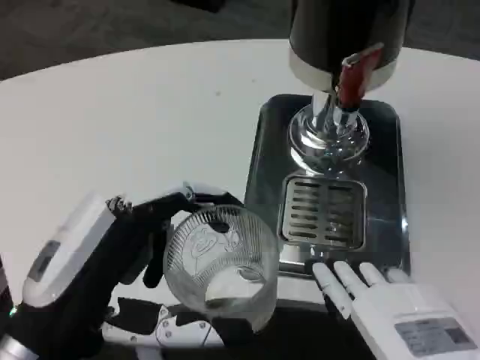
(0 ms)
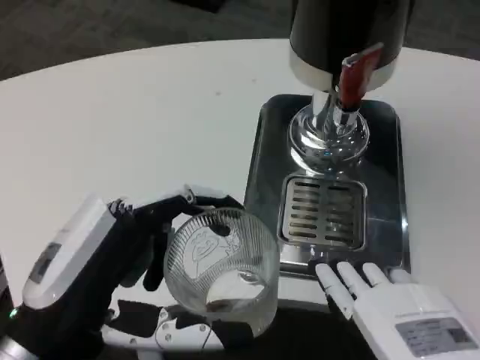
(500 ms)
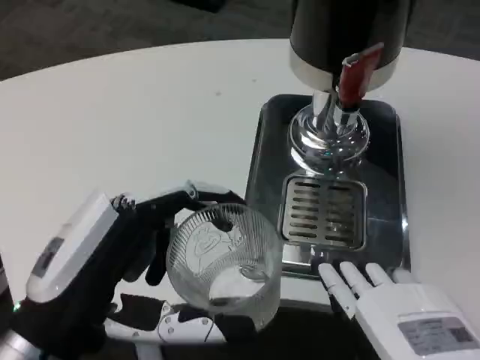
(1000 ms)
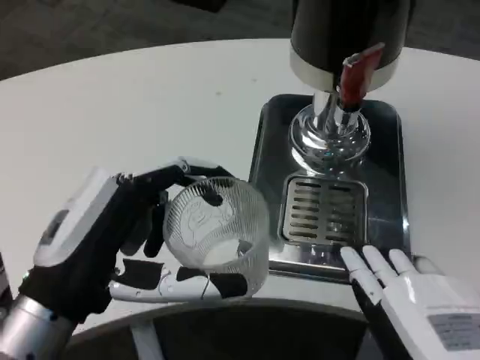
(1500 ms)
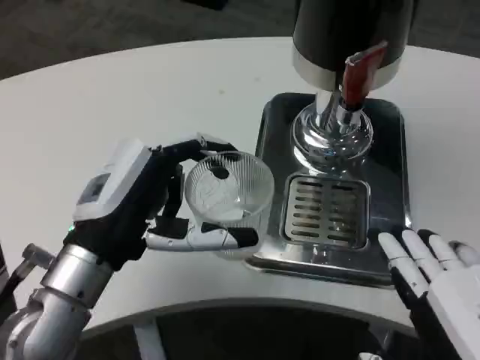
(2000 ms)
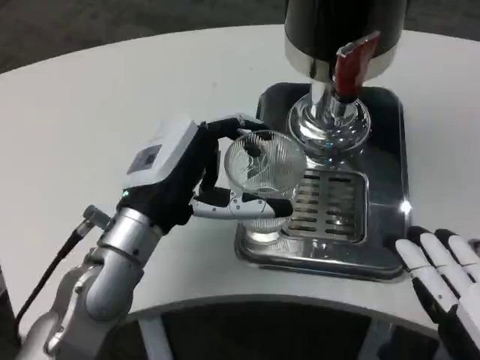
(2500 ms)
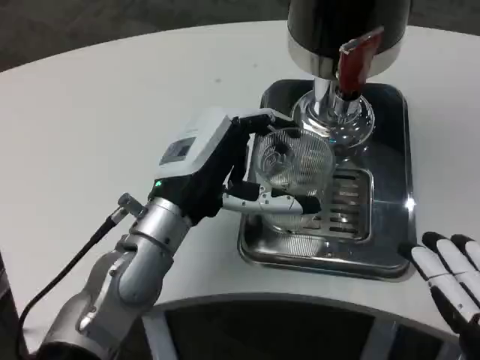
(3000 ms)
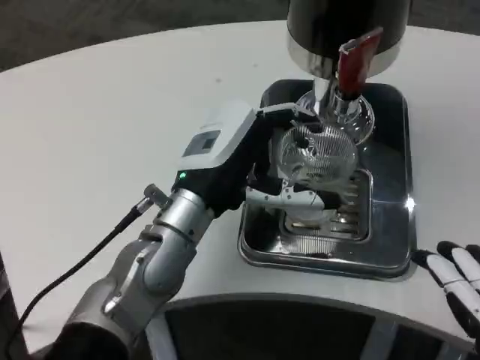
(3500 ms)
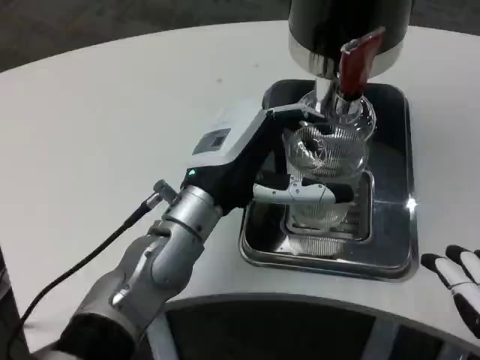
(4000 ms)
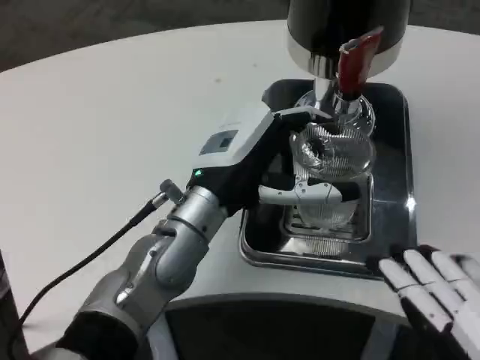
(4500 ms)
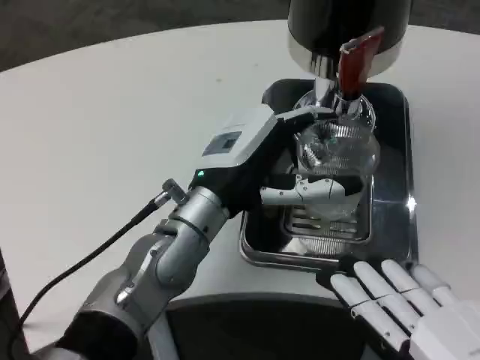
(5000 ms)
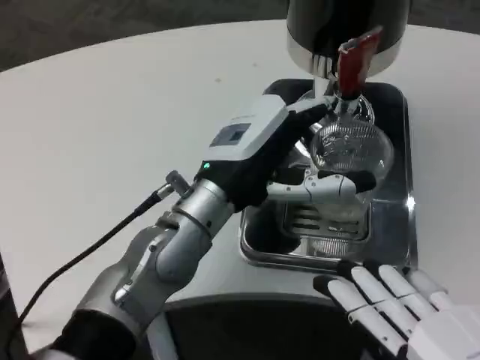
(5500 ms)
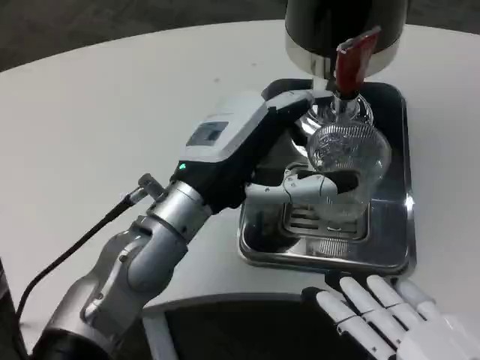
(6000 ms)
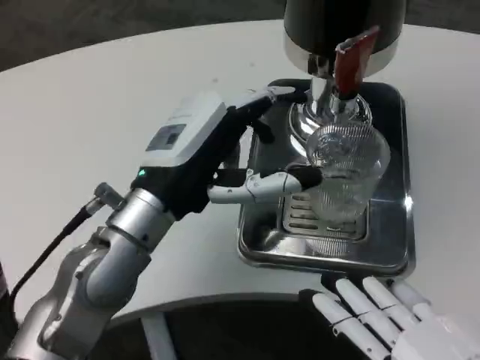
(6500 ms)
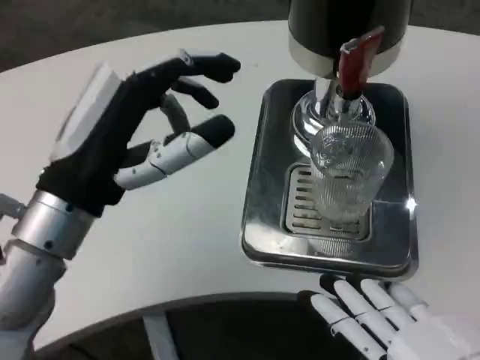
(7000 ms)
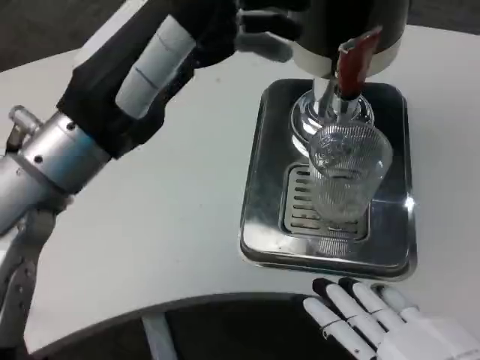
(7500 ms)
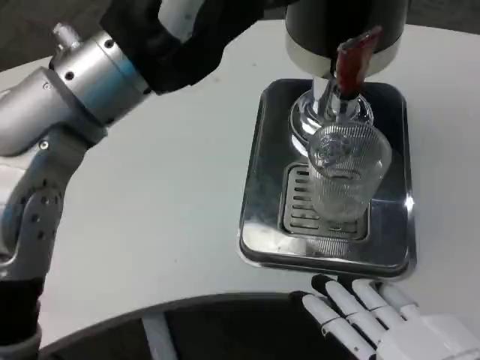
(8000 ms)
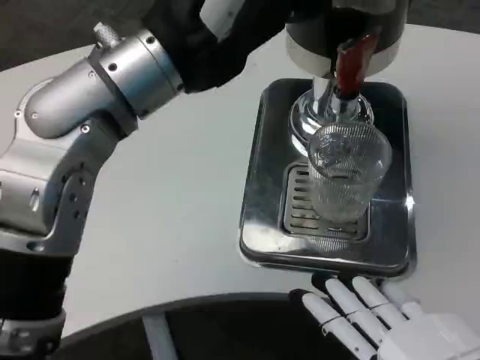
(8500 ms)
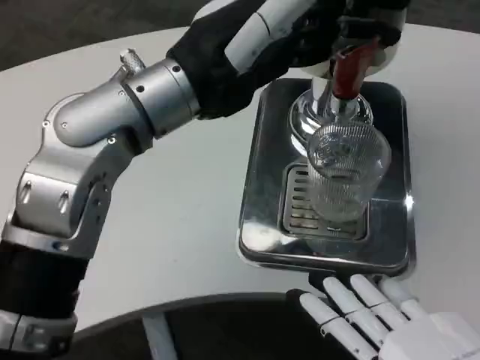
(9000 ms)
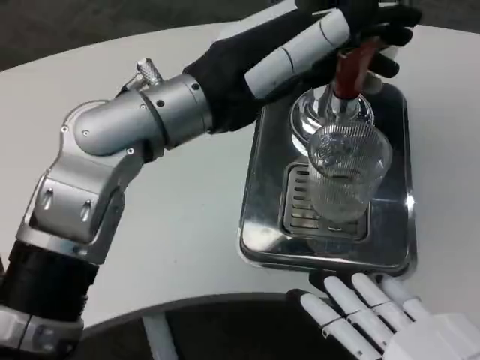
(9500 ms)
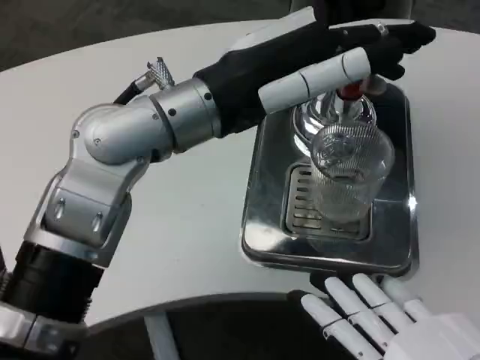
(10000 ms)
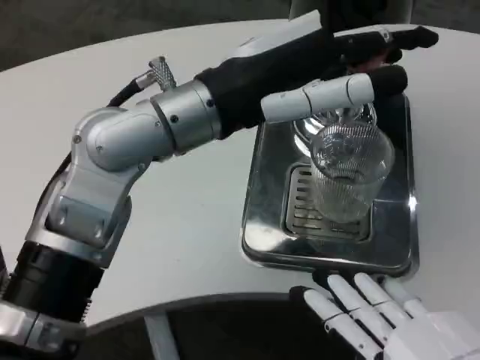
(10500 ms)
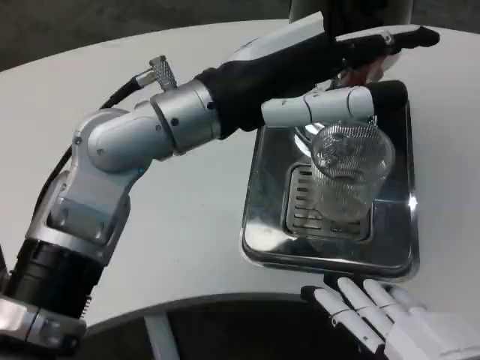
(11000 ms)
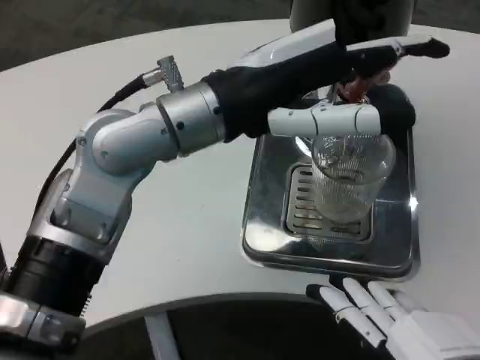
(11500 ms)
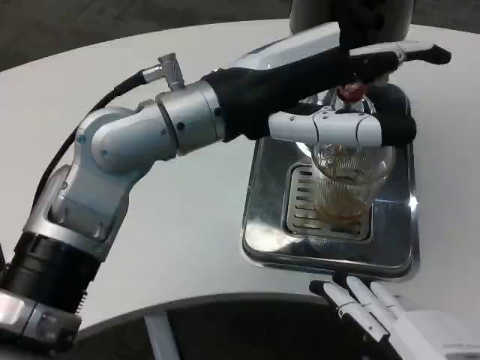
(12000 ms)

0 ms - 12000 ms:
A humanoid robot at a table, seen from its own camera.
Task of the whole recording: Grasp the cup under the faucet to collect the drink, then remove the cup.
0 ms - 2000 ms: The left hand travels forward by roughly 10 cm.
2000 ms - 4000 ms: The right hand moves roughly 5 cm. Meanwhile the left hand heads to the right and forward, covering roughly 10 cm.
6000 ms - 8000 ms: The left hand is displaced upward by about 15 cm.
8000 ms - 10000 ms: The left hand moves approximately 5 cm.

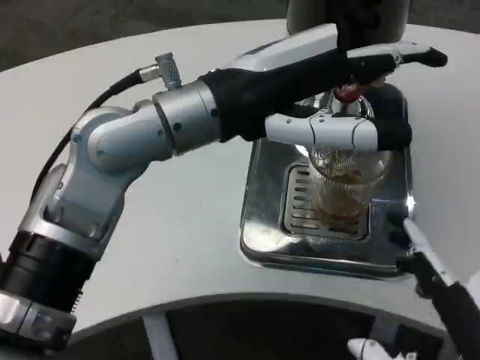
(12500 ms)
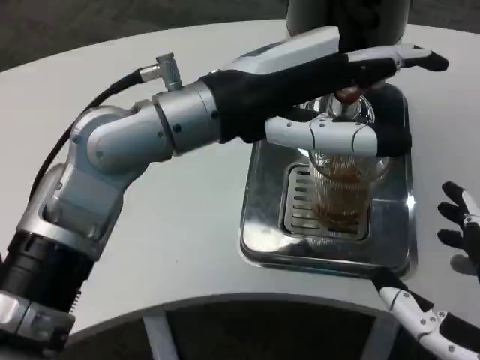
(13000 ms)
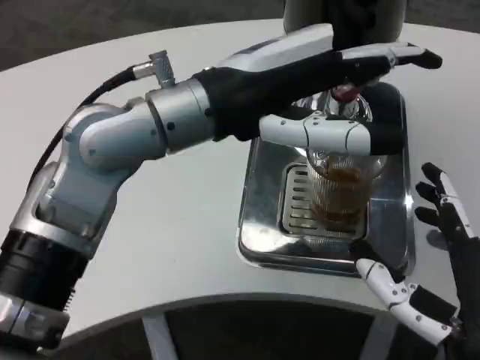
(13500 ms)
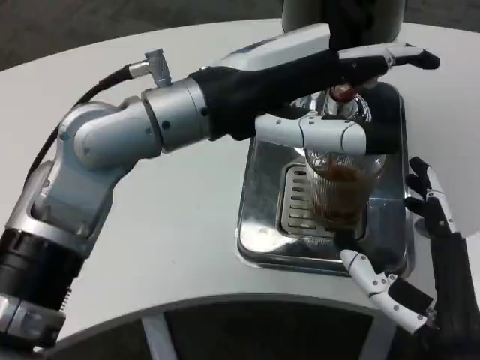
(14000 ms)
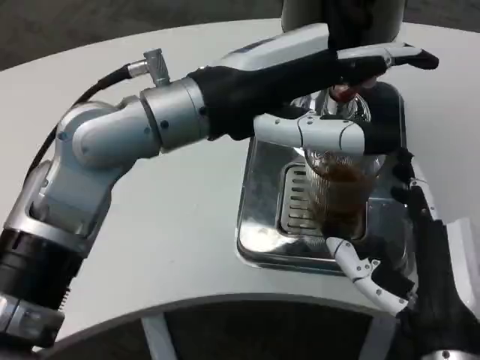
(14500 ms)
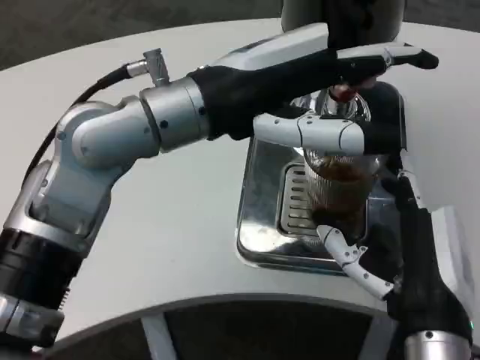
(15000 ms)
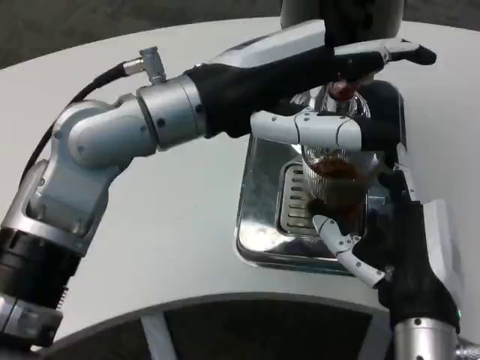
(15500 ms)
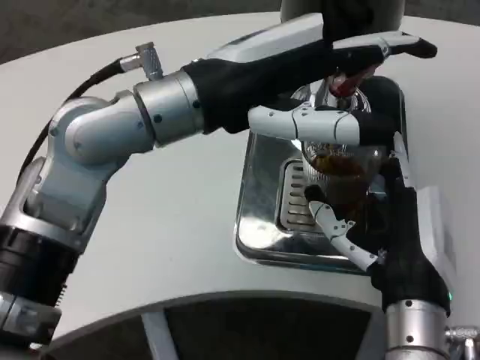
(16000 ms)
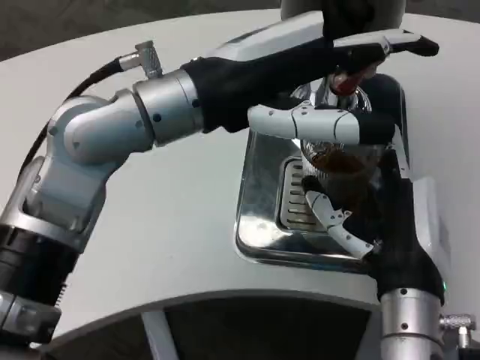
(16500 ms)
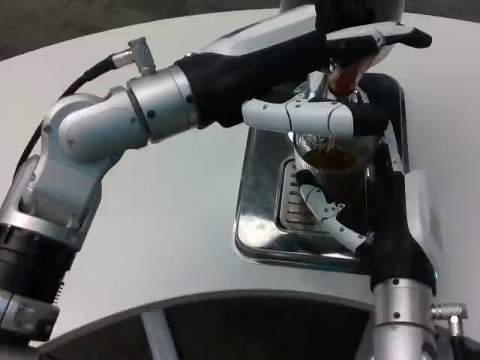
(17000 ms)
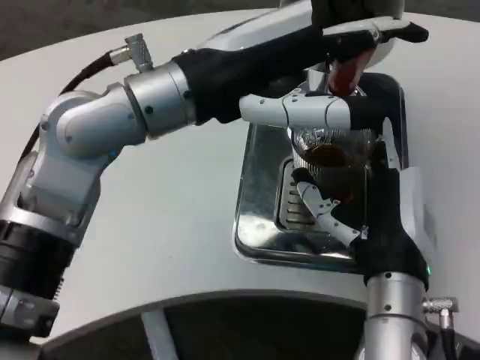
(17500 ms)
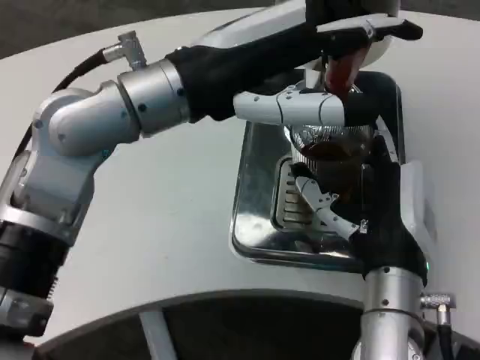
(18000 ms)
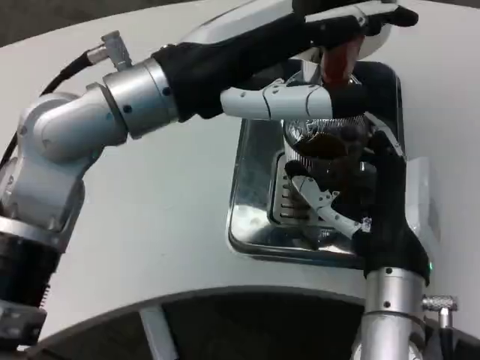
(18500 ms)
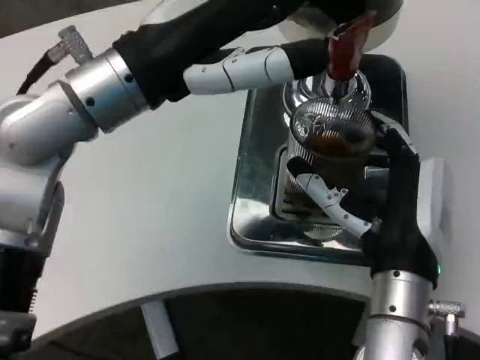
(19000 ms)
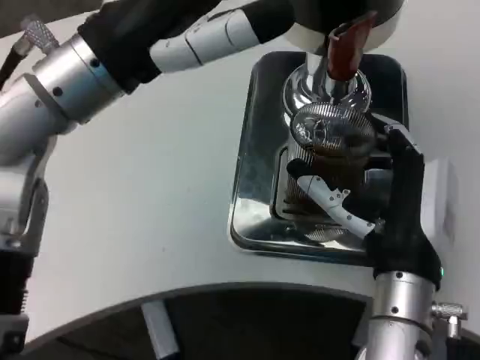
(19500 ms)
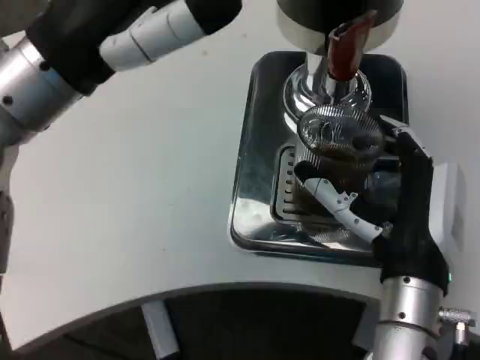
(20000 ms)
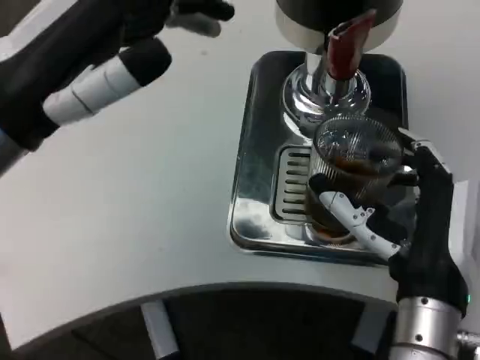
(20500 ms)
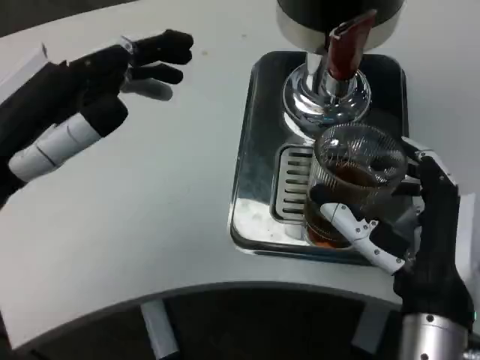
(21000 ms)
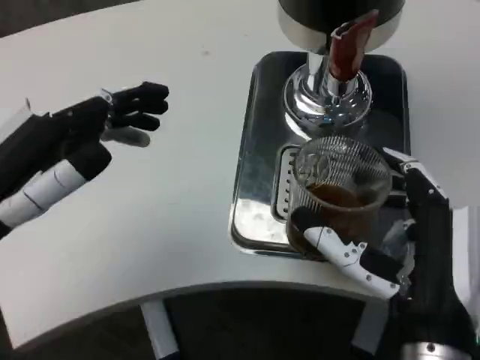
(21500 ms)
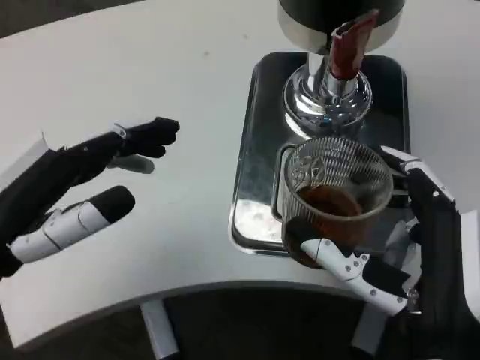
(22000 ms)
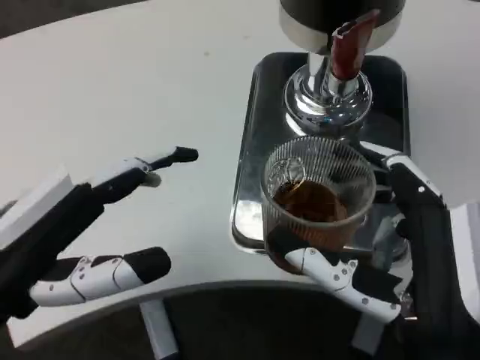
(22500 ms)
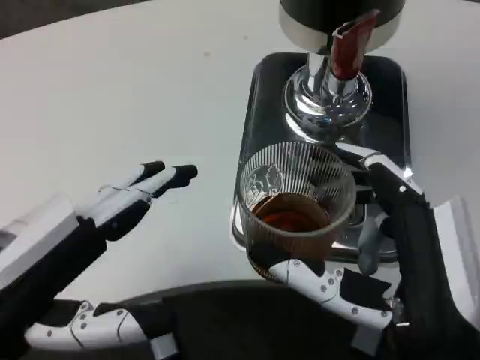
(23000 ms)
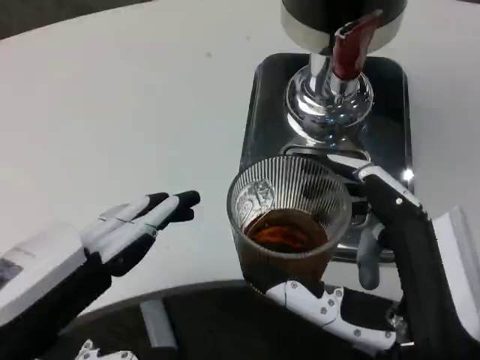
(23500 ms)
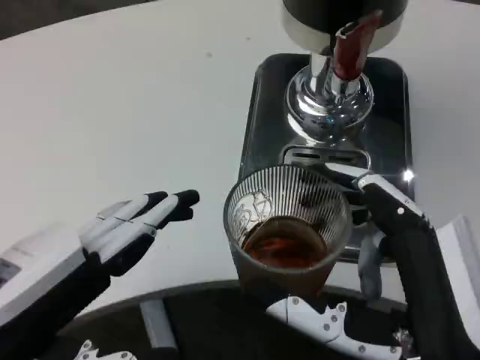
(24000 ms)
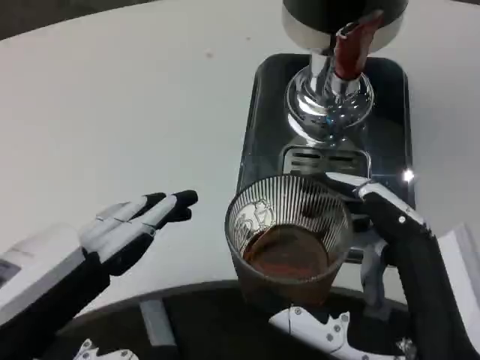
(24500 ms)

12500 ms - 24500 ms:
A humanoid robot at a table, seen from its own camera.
Task of the whole recording: Grasp the cup under the faucet to collect the drink, then remove the cup.
12500 ms - 14500 ms: The right hand goes roughly 10 cm forward.
14500 ms - 16500 ms: The right hand is displaced forward by roughly 5 cm.
18500 ms - 20500 ms: The left hand heads to the left, covering roughly 10 cm.
20500 ms - 22500 ms: The right hand travels backward by roughly 10 cm. The left hand is displaced downward and backward by about 10 cm.

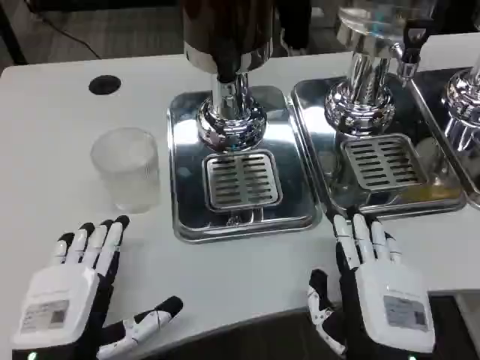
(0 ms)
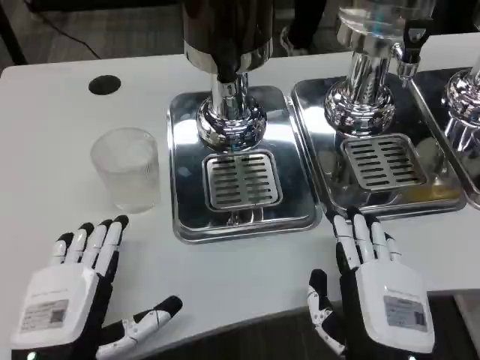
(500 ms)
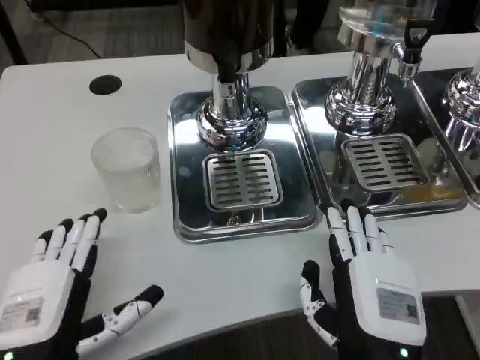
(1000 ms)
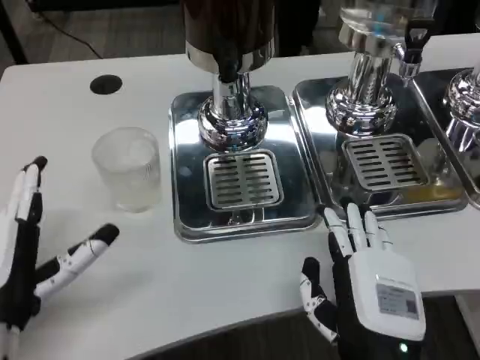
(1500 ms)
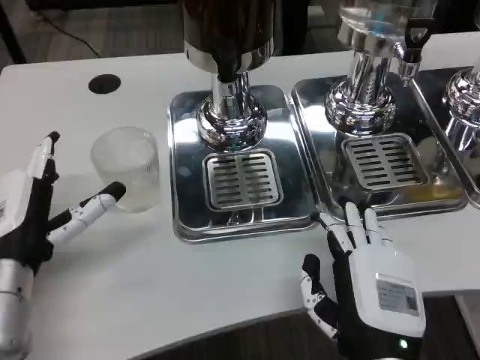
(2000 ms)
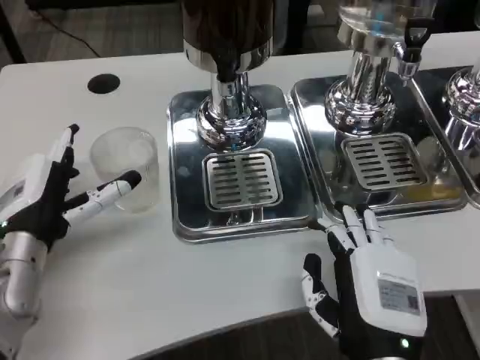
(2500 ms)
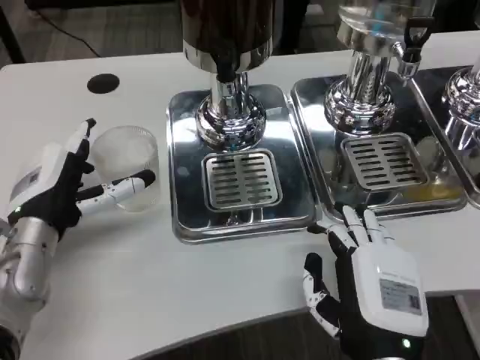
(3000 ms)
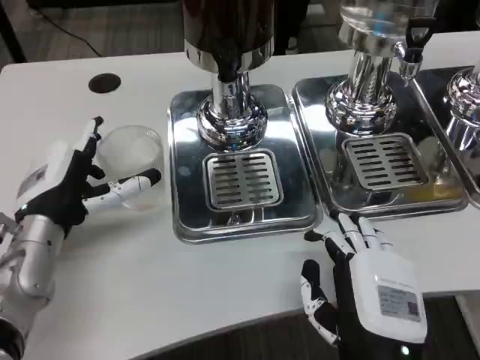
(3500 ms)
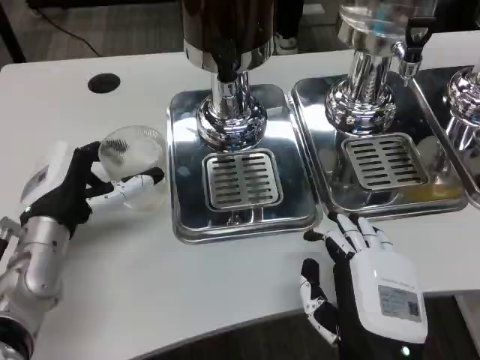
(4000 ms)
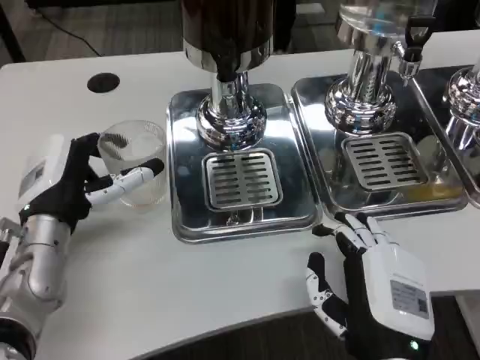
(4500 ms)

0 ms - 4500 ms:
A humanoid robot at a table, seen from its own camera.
Task of the whole recording: Grasp the cup under the faucet to collect the drink, then remove the cup.
0 ms - 2000 ms: The left hand heads forward, covering some 10 cm.
2000 ms - 4500 ms: The left hand moves roughly 5 cm.
